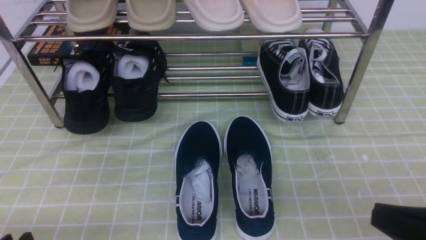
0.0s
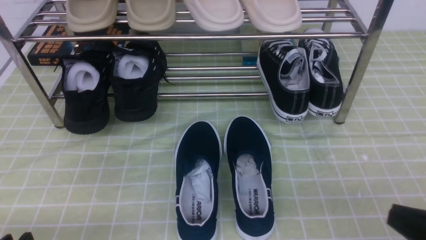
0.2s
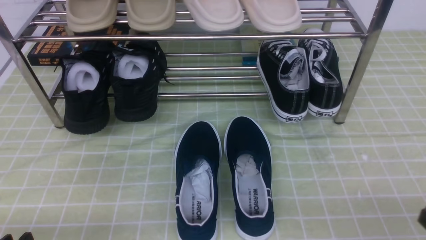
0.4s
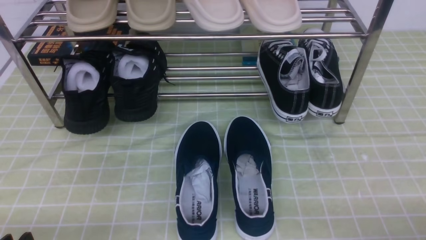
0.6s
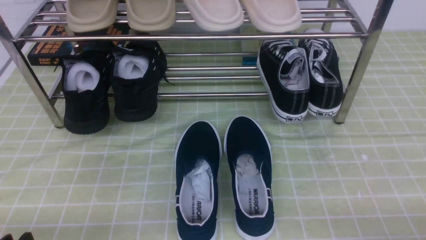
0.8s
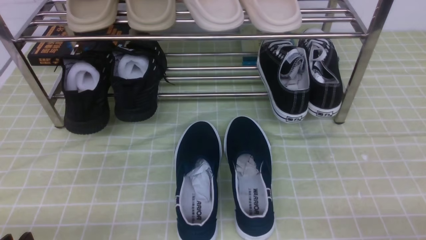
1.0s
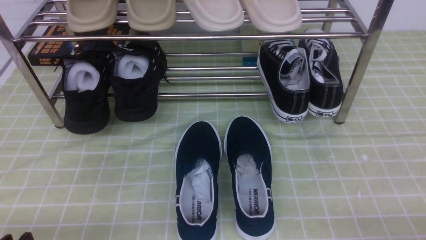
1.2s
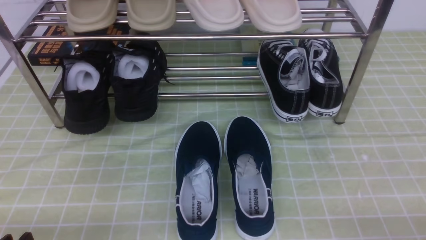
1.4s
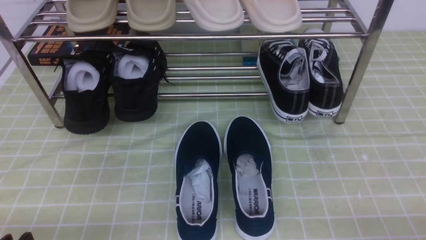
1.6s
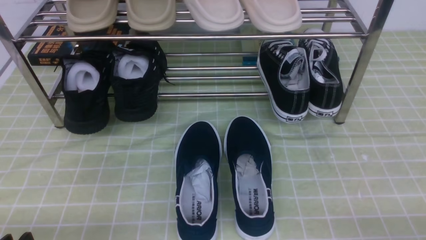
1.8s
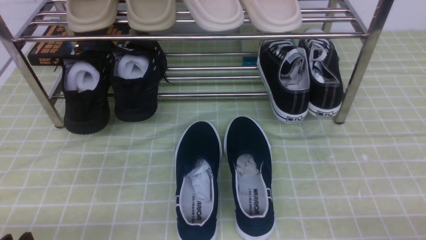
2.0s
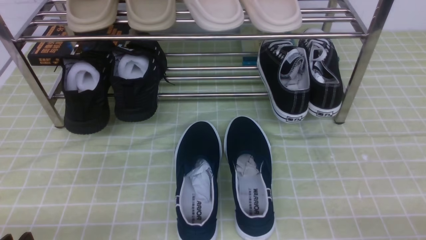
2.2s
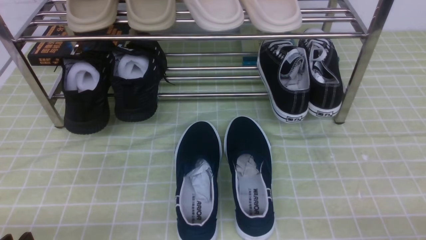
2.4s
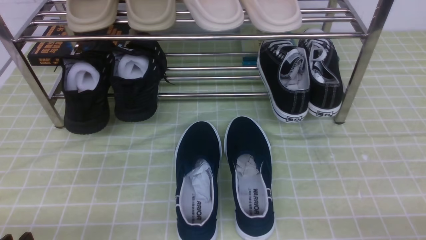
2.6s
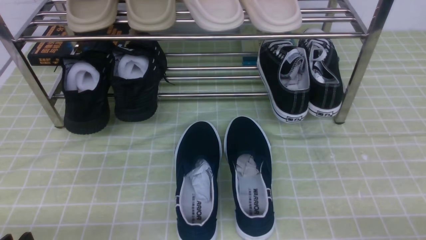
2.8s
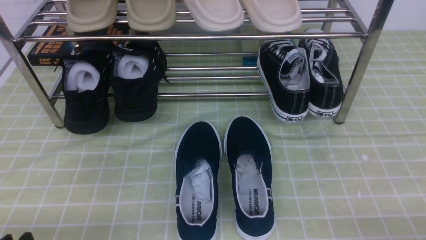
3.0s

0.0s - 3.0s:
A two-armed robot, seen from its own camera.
0.0s - 1.6s: The right gripper moves downward and to the right, approximately 10 cm.
1.6s - 3.0s: Both grippers stay put.
